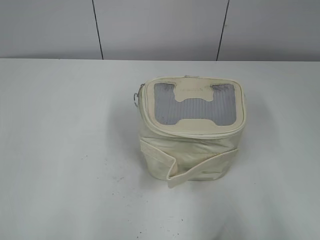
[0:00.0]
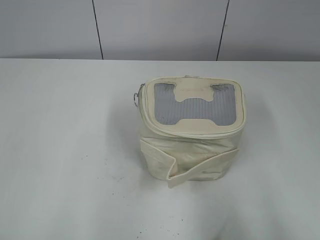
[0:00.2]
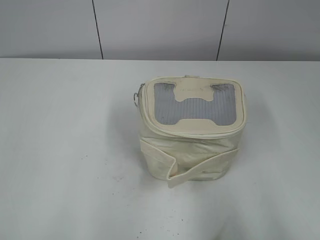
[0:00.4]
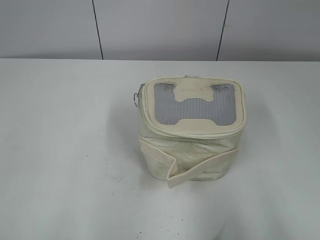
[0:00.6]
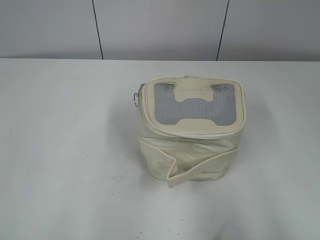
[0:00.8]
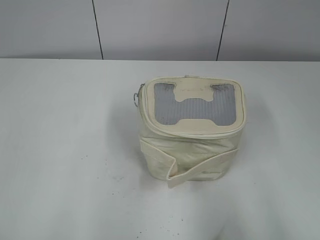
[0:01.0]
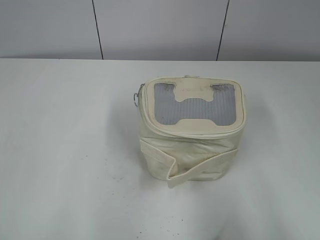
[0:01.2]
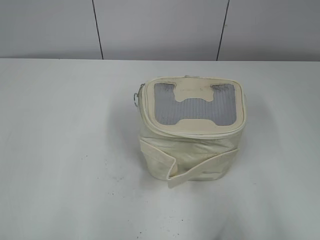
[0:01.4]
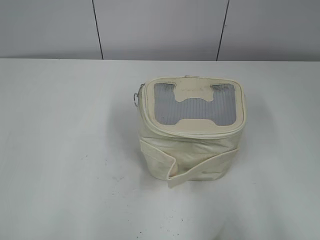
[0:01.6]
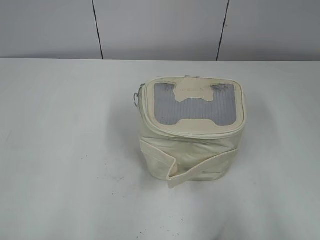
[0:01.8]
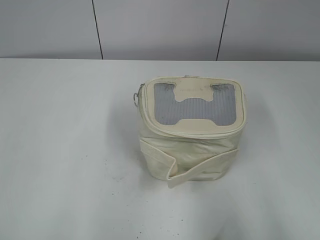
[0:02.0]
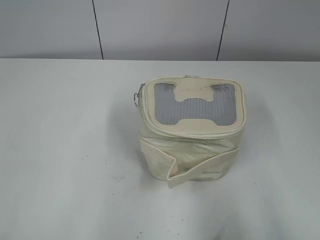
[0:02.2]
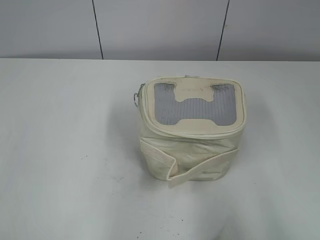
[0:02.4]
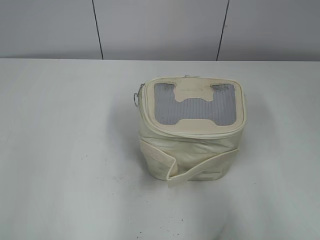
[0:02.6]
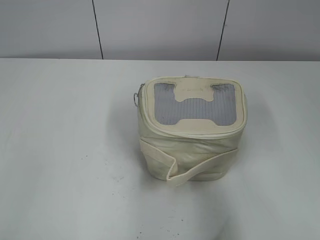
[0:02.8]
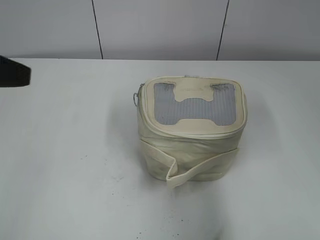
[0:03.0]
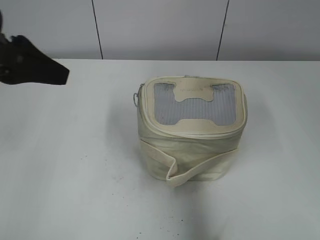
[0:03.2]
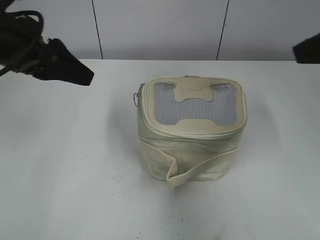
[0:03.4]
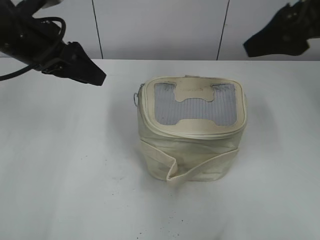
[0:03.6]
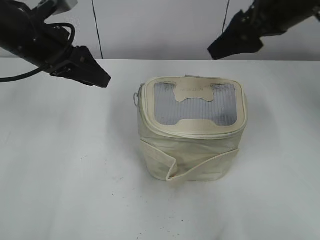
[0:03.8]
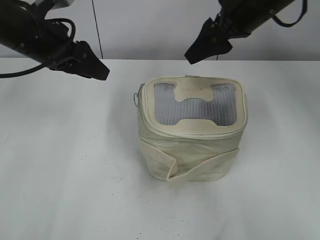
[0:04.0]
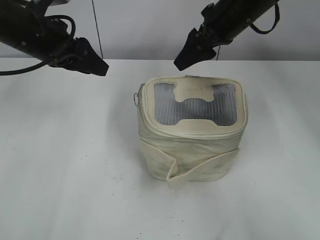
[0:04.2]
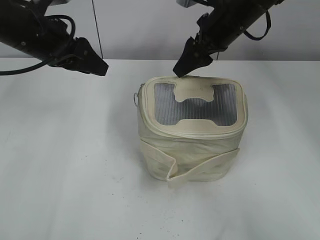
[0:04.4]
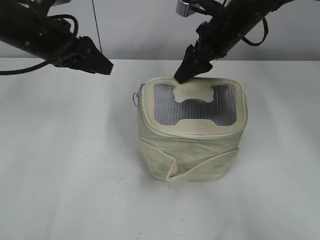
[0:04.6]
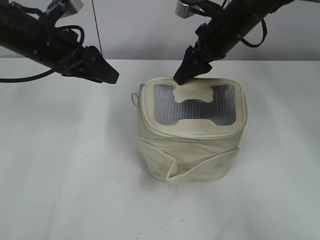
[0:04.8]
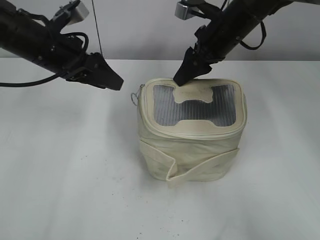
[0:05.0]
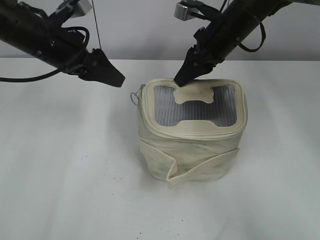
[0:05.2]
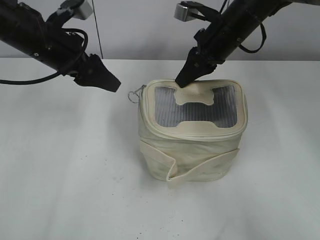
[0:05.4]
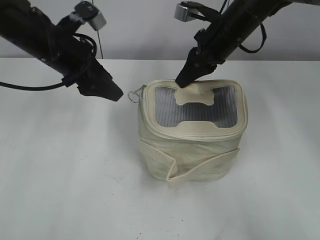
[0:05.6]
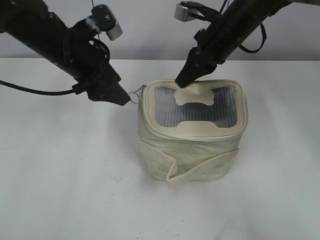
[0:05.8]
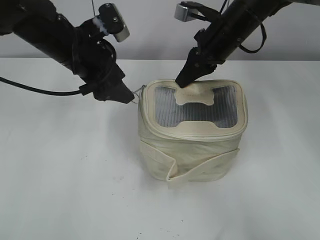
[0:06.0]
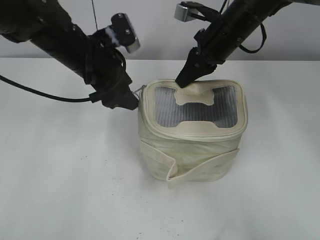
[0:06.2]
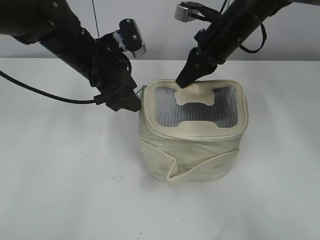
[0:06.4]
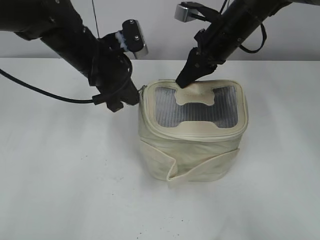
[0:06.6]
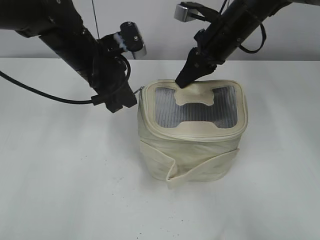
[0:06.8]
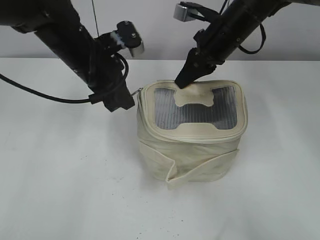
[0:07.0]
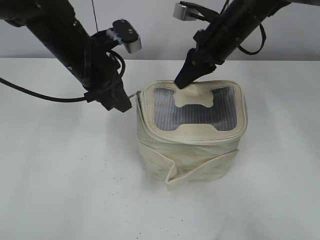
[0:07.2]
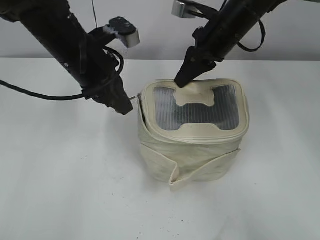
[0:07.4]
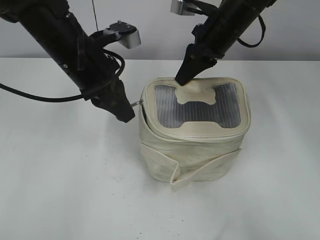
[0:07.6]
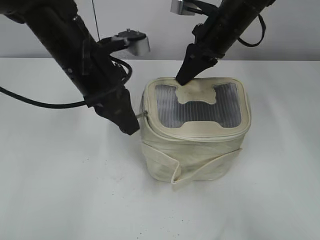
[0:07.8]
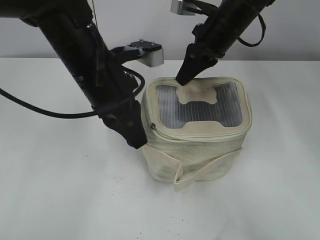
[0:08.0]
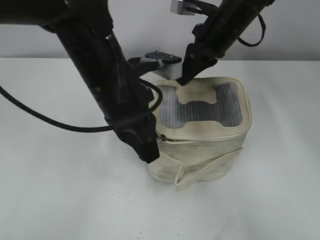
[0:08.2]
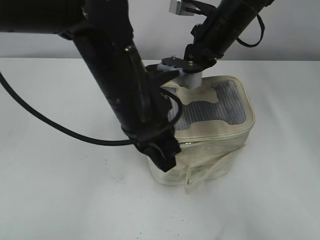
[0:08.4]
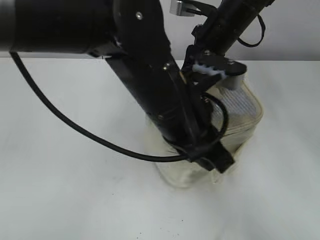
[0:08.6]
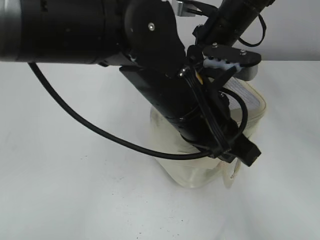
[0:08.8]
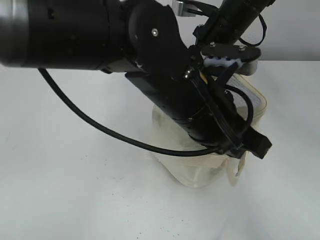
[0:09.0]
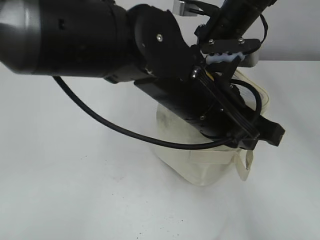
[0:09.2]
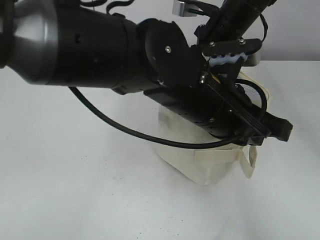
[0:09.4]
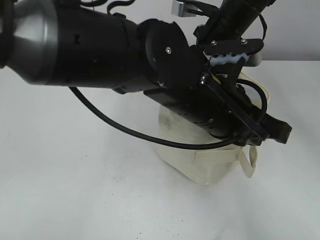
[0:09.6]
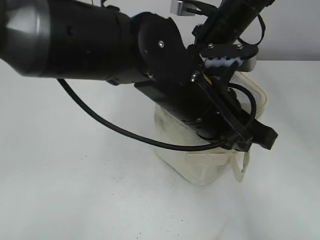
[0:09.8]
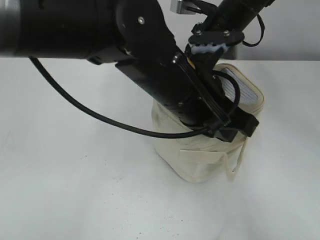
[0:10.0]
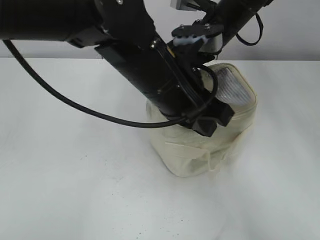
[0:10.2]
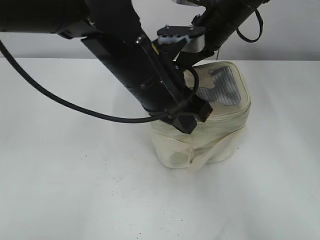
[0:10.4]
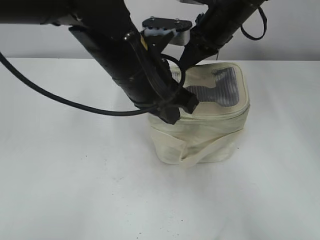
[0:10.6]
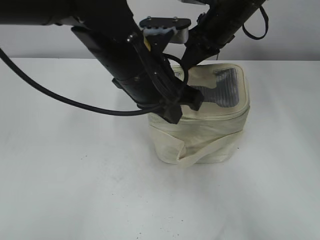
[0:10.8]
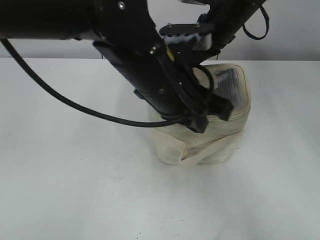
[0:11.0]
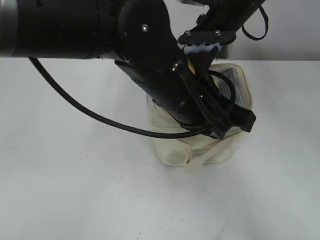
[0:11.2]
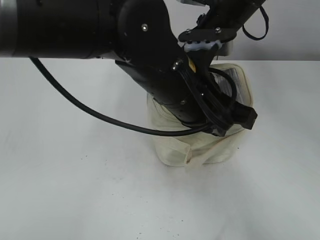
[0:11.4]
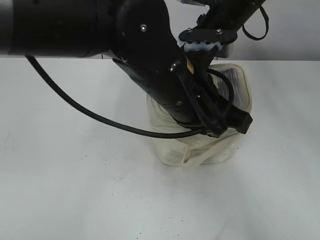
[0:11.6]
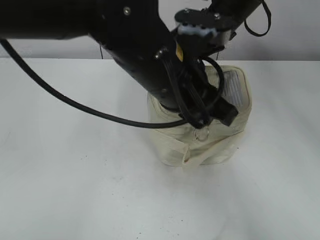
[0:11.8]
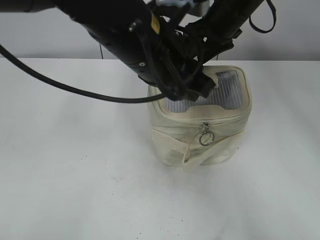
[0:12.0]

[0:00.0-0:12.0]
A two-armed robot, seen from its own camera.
Step, 0:00.0 to 0:11.8: Zip up the bag with your left hand.
0:01.6 to 0:03.0: The right gripper travels forward by approximately 10 cm; the left gripper moves forward and to the right, some 20 cm.
0:03.0 to 0:04.4: The left gripper shifts some 15 cm forward and to the right, while the right gripper heads forward and to the left, covering about 35 cm.
0:04.4 to 0:06.0: The left gripper travels to the right by roughly 5 cm. Meanwhile the right gripper closes.
0:06.0 to 0:07.6: The left gripper closes its fingers.
0:07.6 to 0:09.0: The left gripper moves to the right and backward, some 20 cm.
0:09.0 to 0:10.4: The left gripper heads to the left, covering approximately 5 cm.
0:10.4 to 0:12.0: The left gripper opens its fingers. The right gripper opens up.

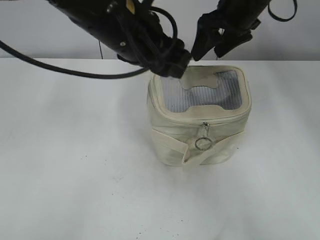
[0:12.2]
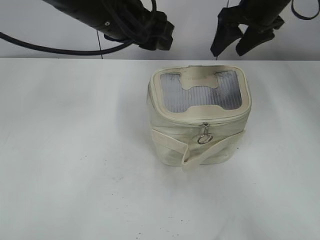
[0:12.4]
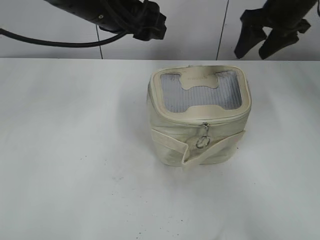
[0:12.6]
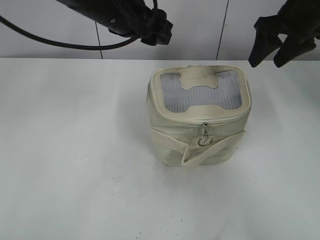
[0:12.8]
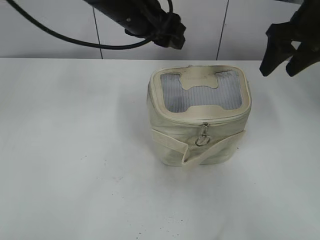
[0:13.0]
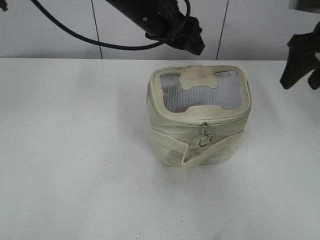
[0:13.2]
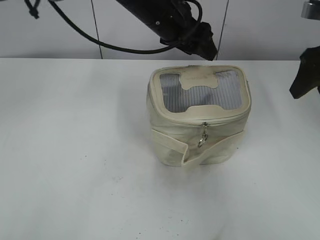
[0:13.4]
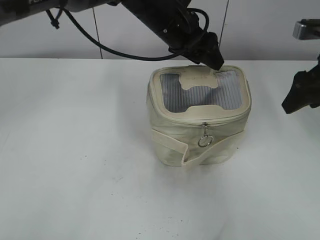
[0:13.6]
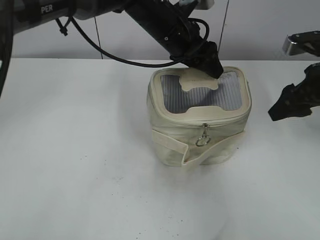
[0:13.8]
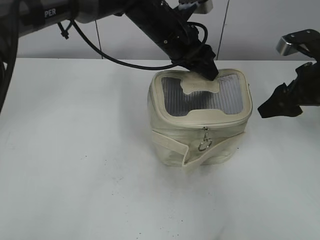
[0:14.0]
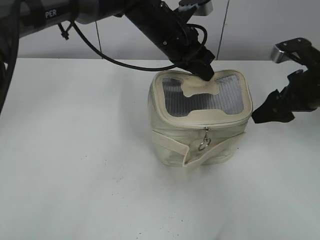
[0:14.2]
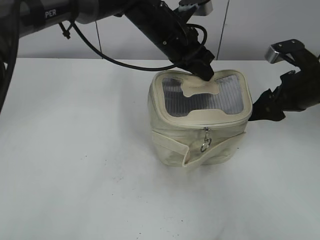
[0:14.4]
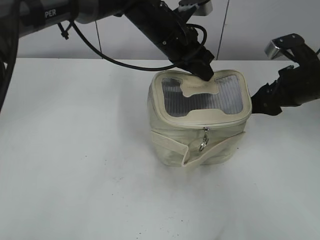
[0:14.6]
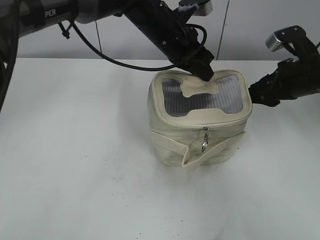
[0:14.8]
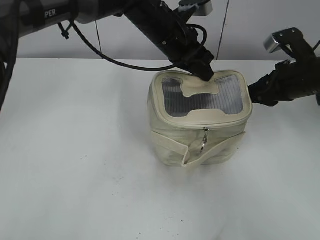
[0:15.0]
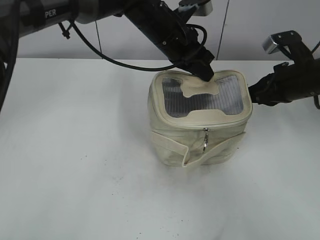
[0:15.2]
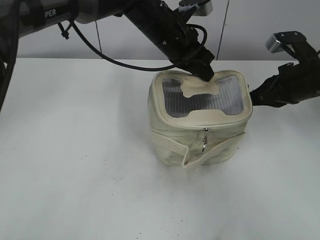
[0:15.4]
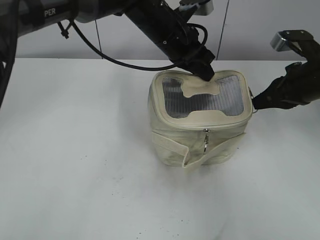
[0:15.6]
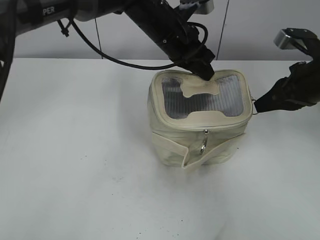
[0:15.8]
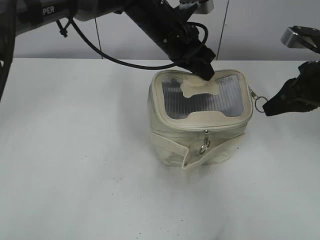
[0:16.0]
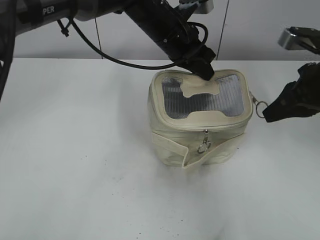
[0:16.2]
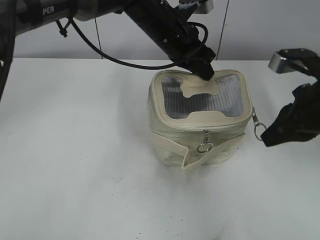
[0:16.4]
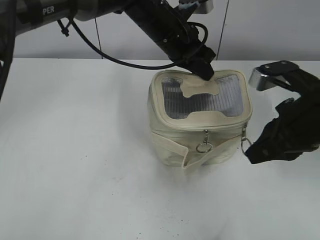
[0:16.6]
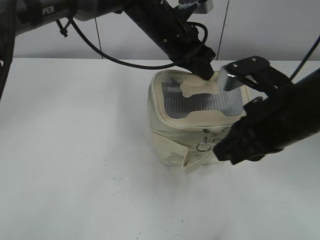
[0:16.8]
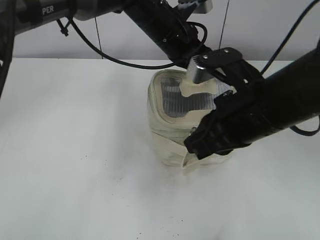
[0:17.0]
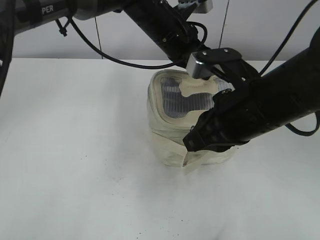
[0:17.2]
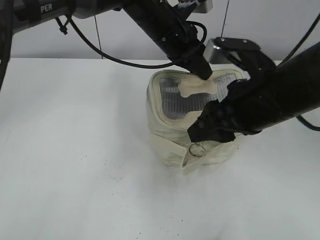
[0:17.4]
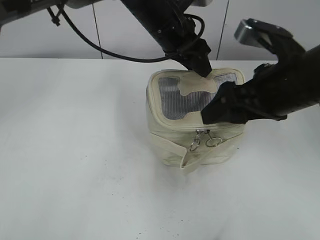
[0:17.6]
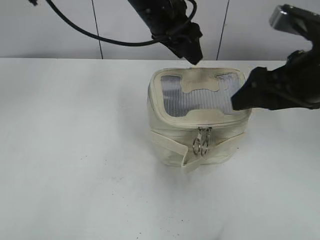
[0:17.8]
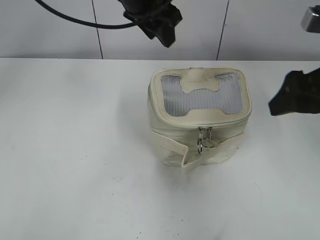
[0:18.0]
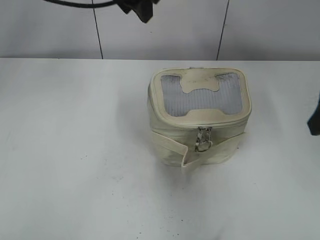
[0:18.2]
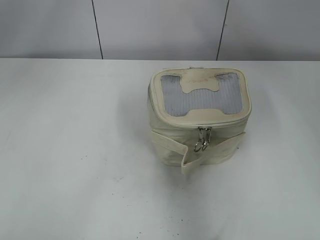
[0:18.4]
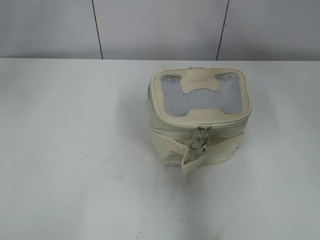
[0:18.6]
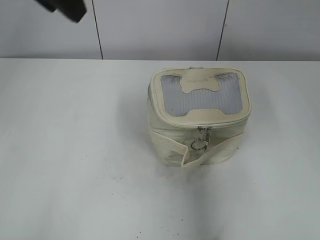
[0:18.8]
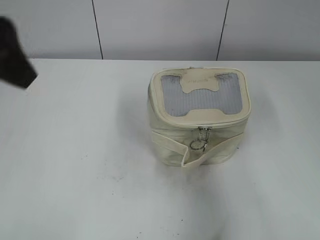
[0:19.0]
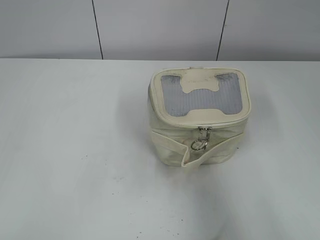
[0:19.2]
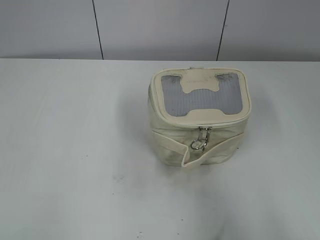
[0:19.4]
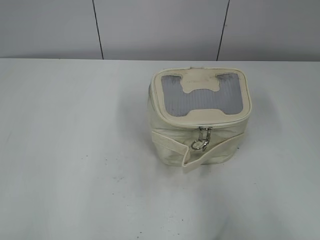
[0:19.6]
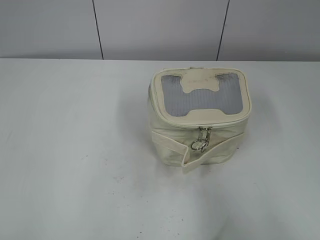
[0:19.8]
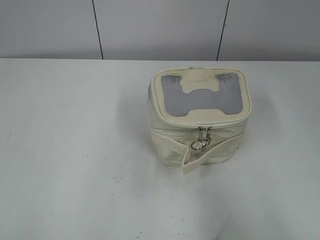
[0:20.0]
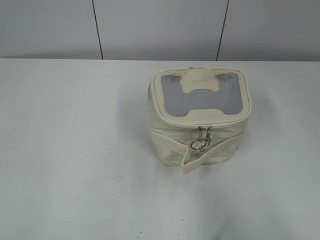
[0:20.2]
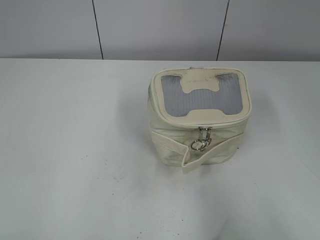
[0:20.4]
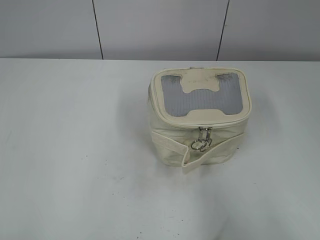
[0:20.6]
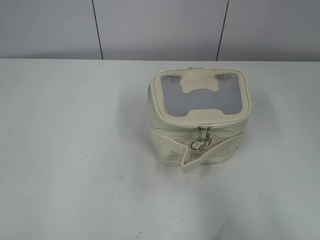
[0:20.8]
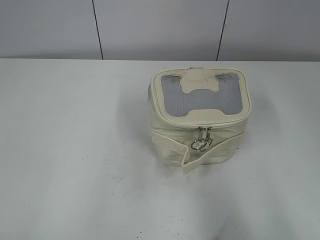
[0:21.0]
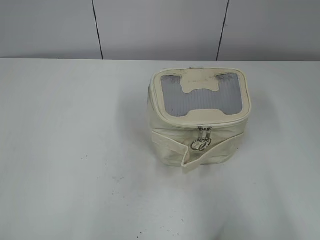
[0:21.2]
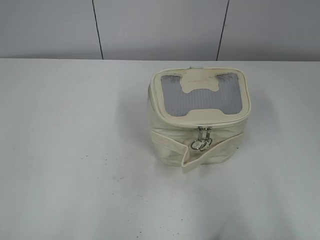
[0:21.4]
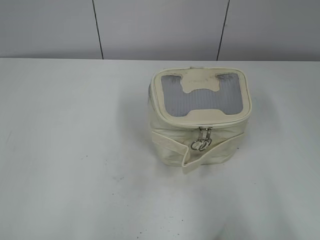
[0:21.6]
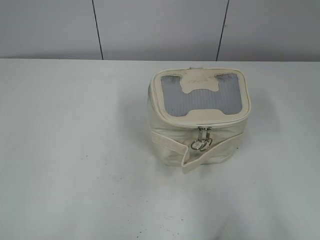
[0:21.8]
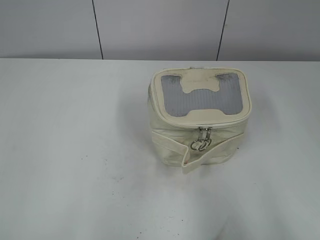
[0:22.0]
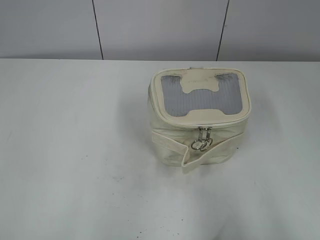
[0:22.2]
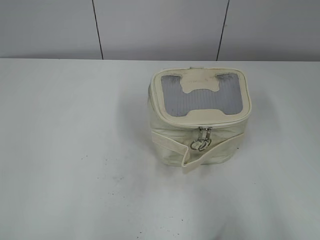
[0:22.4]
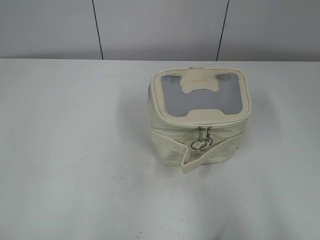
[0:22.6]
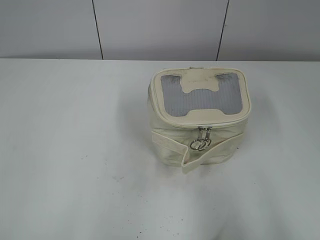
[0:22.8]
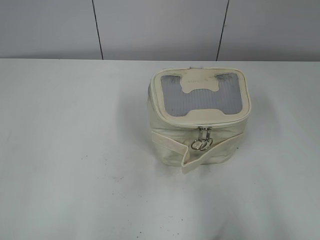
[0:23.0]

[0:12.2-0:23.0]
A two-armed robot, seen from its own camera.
Step, 0:12.4 to 0:17.6: Zip up the bag with your right hand.
0:12.2 to 0:13.8: The left gripper heads forward, to the right and downward, covering about 15 cm, while the right gripper travels to the right, backward and downward by some 20 cm.
0:13.8 to 0:15.2: The left gripper closes its fingers. The right gripper ends up about 5 cm from where it was, and closes up.
0:15.2 to 0:16.8: The right gripper shifts roughly 15 cm backward, to the left and upward.
0:16.8 to 0:18.4: The left gripper is displaced upward and to the left by roughly 20 cm, and opens its fingers, while the right gripper travels to the right and upward by approximately 15 cm, and opens up.
0:18.4 to 0:20.0: The right gripper travels backward by about 15 cm. The left gripper goes some 40 cm backward and to the left.
0:21.4 to 0:23.0: Both grippers stay put.
